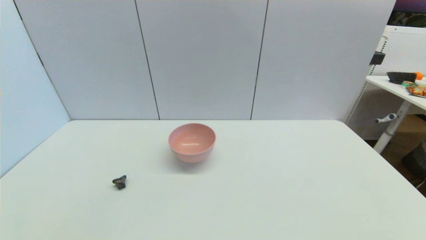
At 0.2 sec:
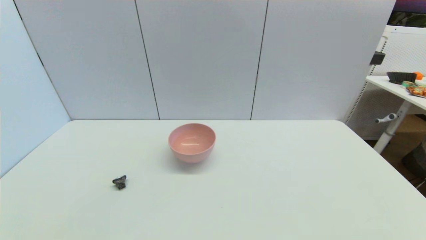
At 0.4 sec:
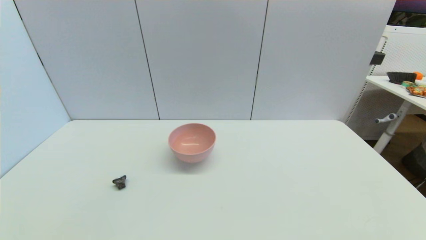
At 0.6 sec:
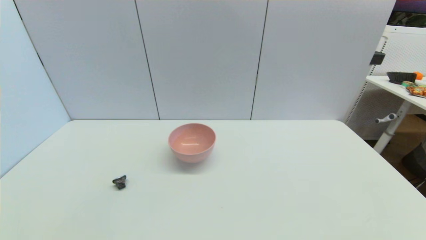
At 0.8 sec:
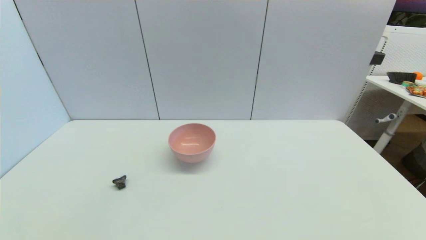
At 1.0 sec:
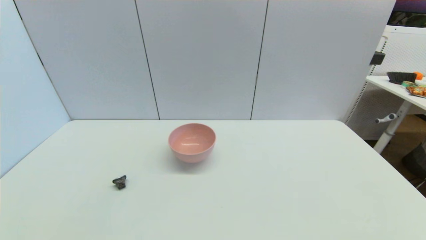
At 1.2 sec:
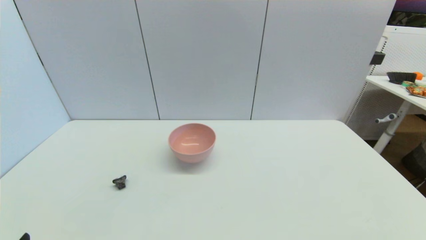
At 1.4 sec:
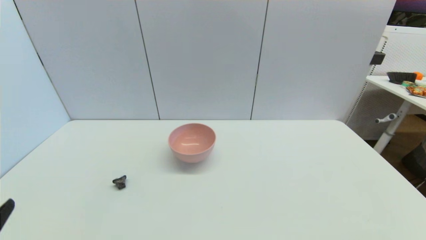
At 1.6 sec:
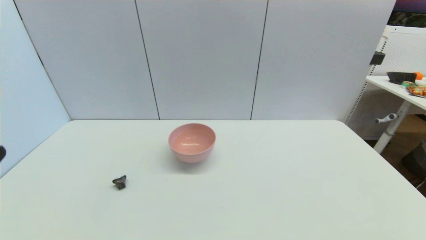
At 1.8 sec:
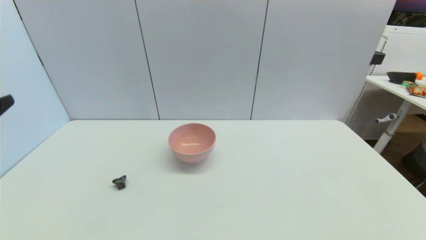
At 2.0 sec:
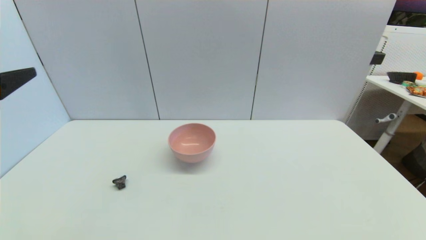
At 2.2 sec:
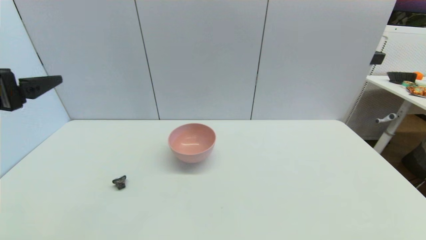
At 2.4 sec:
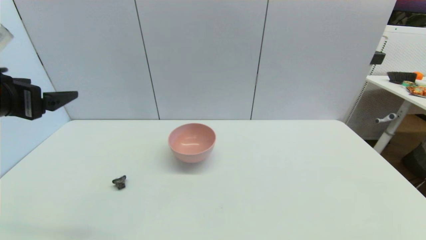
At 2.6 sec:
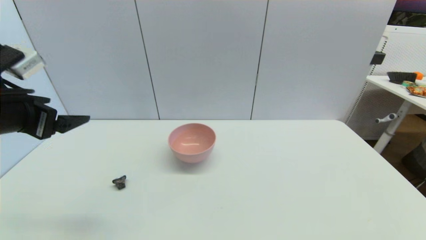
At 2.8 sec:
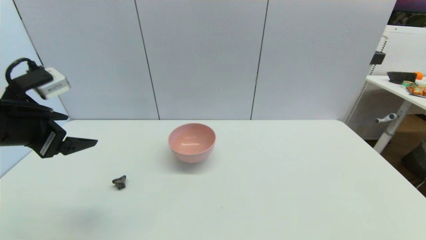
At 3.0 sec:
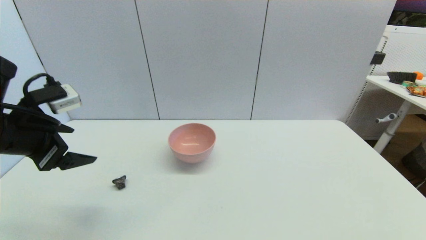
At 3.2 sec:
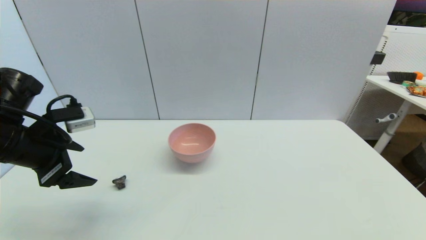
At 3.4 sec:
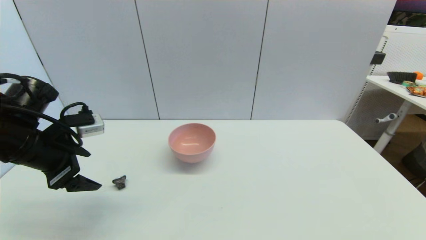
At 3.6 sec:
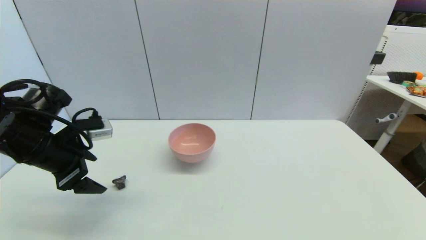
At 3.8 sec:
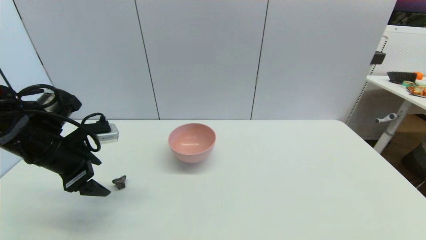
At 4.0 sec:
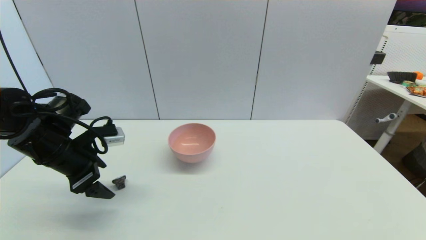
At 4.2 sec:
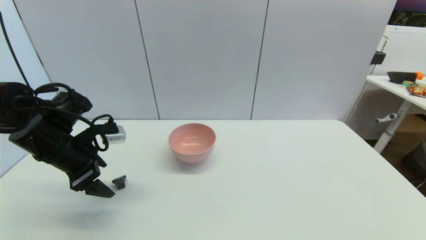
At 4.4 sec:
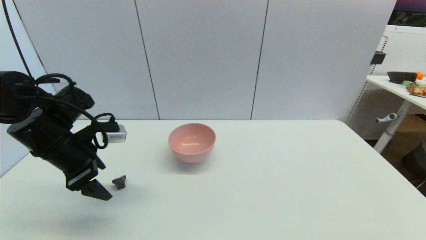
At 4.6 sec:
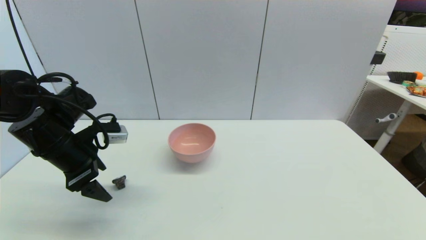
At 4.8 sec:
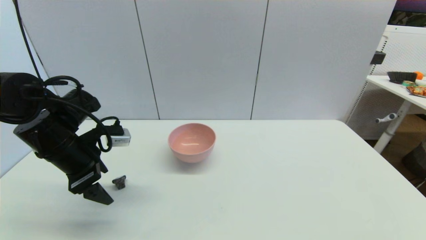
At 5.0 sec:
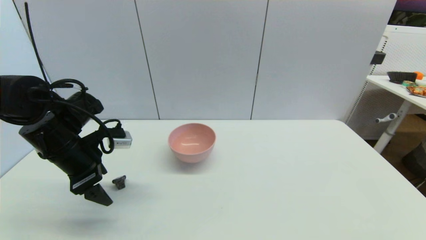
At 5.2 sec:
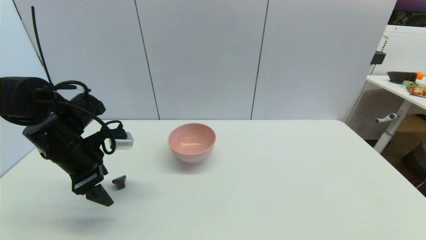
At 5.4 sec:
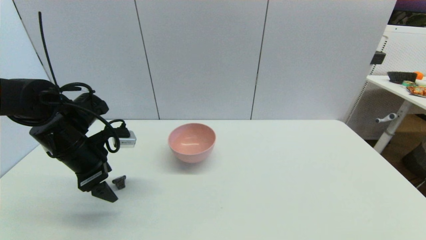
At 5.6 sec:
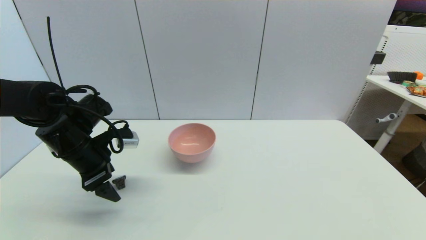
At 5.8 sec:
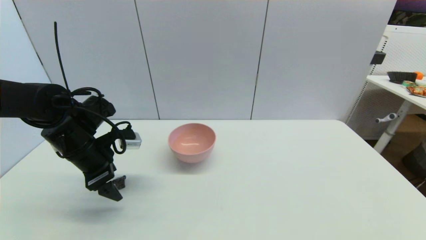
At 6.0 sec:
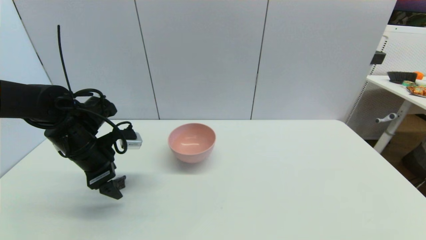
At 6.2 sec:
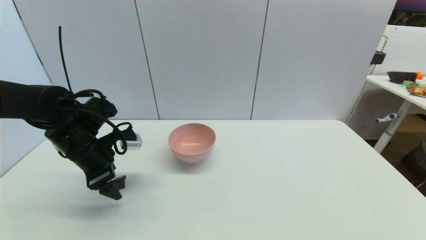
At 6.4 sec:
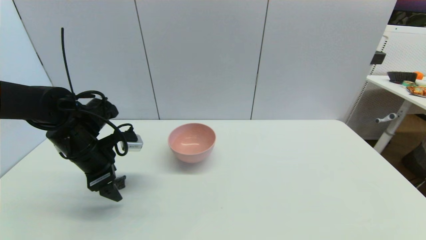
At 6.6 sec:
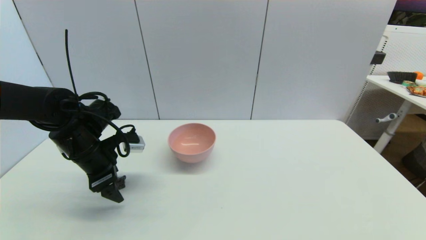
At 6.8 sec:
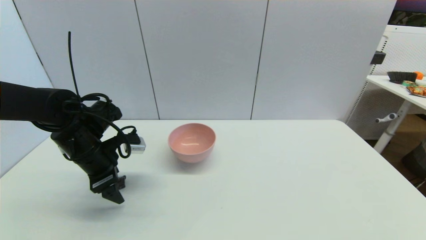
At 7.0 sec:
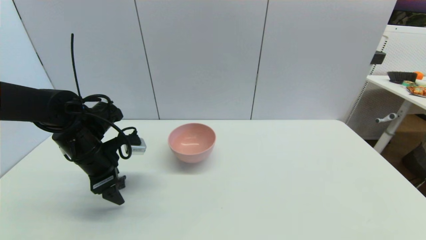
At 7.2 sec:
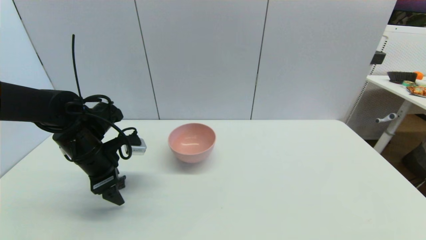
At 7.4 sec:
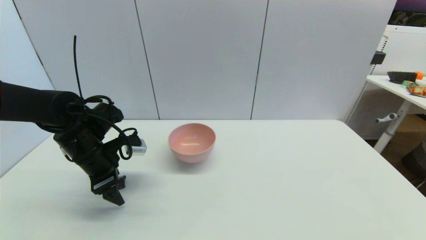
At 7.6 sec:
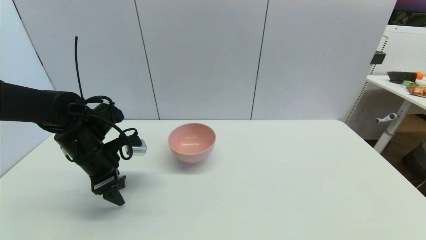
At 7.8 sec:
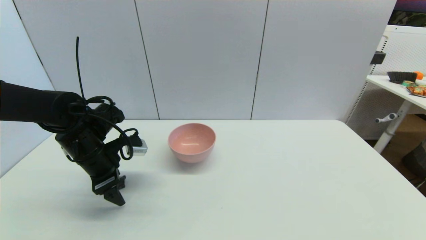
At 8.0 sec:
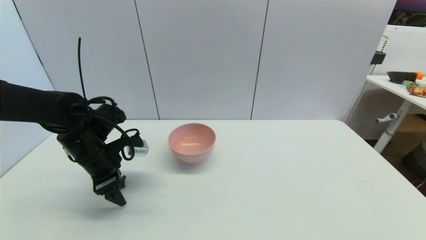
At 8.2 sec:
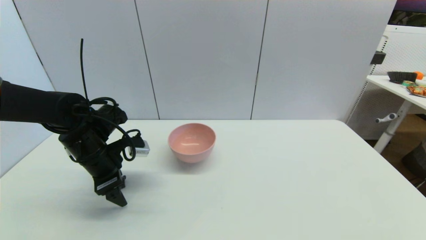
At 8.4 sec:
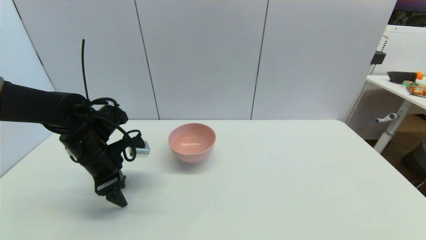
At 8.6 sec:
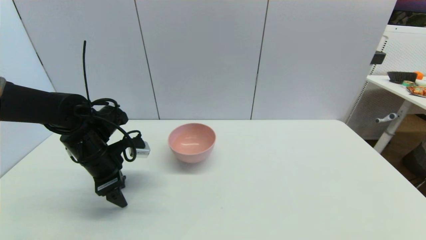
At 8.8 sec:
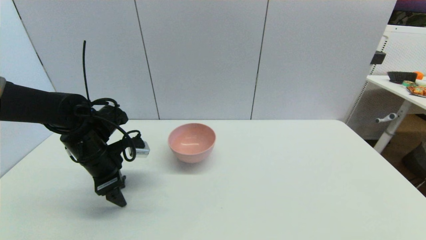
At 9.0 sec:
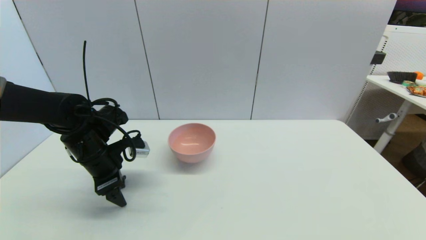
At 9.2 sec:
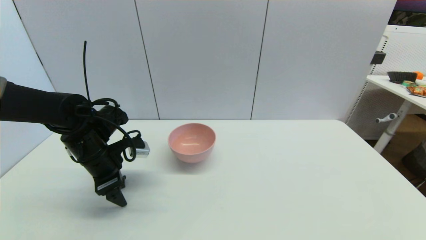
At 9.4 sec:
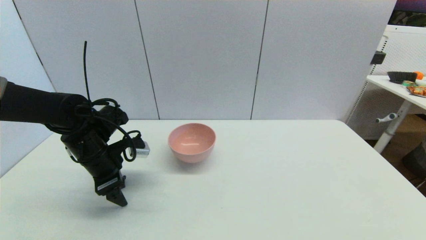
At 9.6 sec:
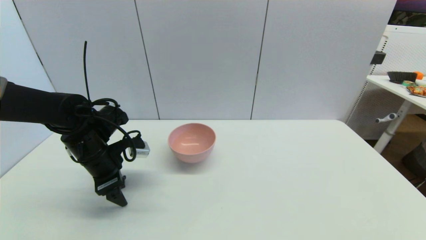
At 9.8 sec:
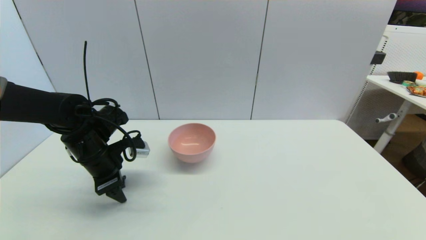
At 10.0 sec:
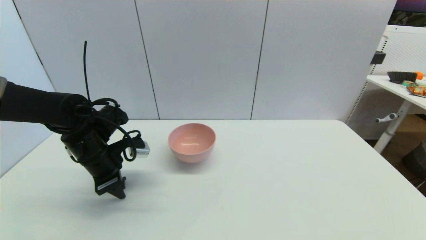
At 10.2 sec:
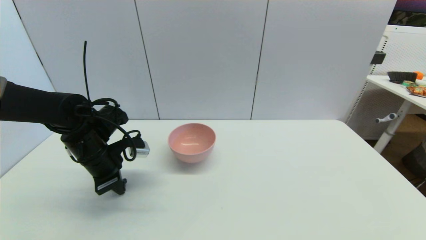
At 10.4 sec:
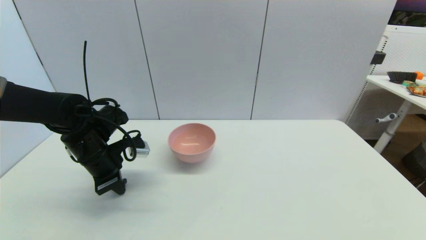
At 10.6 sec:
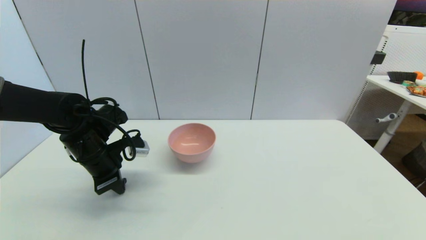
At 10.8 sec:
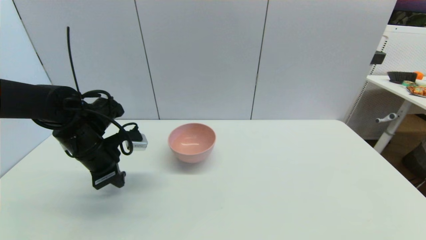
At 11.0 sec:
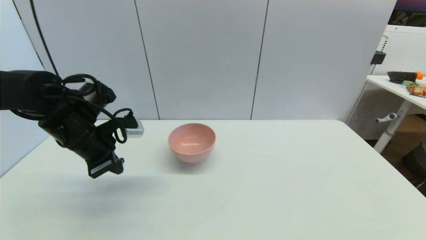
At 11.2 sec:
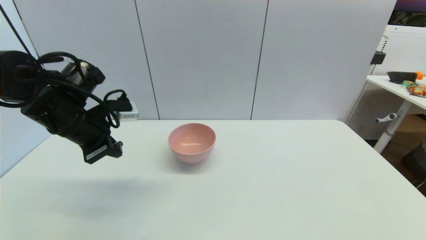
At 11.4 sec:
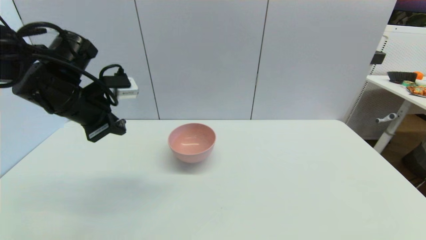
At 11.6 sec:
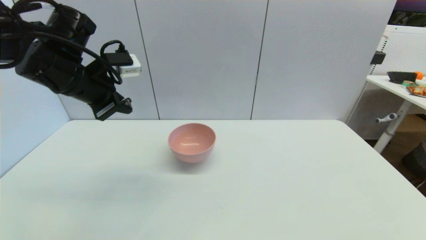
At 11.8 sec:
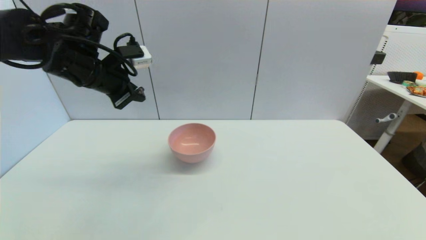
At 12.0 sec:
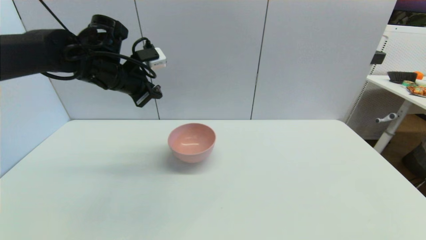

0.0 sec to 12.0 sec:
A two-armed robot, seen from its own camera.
Step, 1.2 sec to 10.2 sec: Grasp the coffee capsule with left gripper.
1.6 sec to 3.0 sec: The left gripper heads forward, covering some 20 cm.
3.0 sec to 4.4 sec: The left gripper shifts approximately 5 cm downward and forward.
4.4 sec to 6.0 sec: There are only small adjustments of the grippers.
6.0 sec to 7.6 sec: There are only small adjustments of the grippers.
7.6 sec to 9.0 sec: Neither gripper changes place.
10.4 sec to 12.0 sec: The left gripper travels upward and forward by approximately 15 cm.

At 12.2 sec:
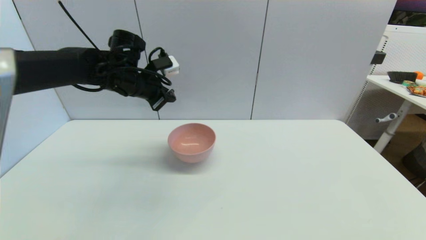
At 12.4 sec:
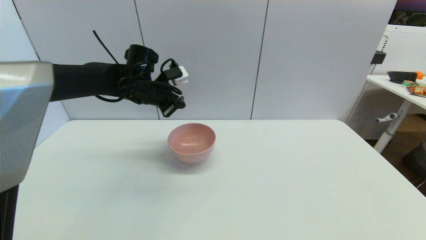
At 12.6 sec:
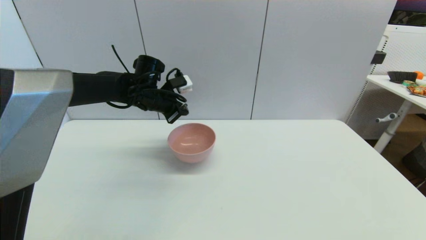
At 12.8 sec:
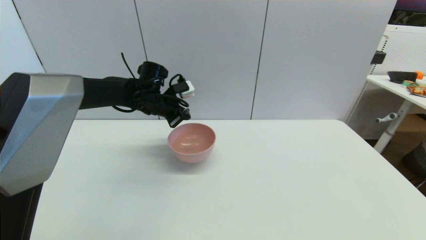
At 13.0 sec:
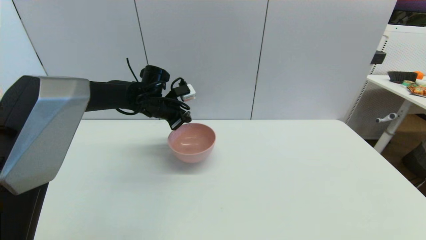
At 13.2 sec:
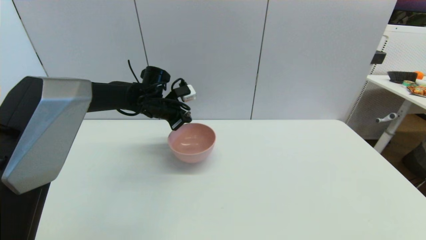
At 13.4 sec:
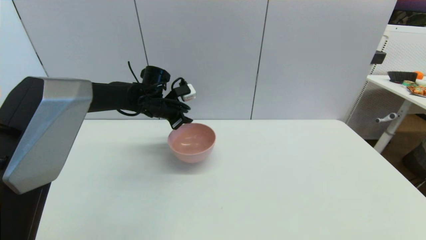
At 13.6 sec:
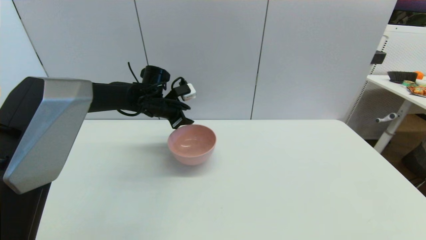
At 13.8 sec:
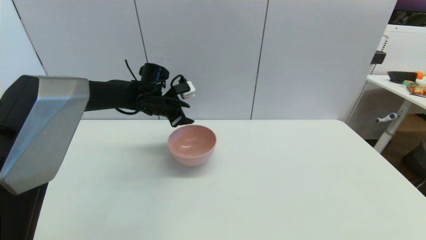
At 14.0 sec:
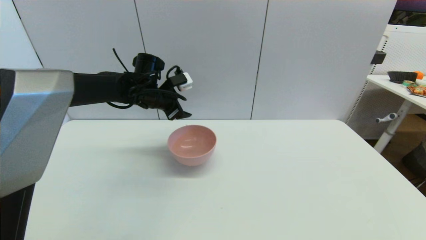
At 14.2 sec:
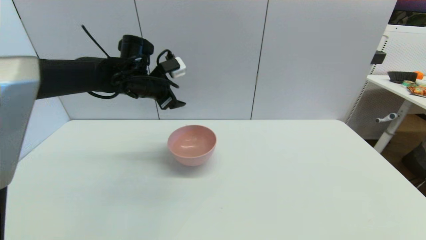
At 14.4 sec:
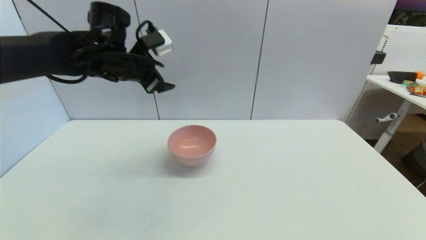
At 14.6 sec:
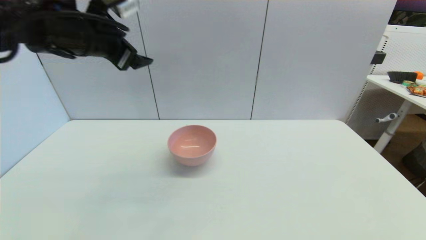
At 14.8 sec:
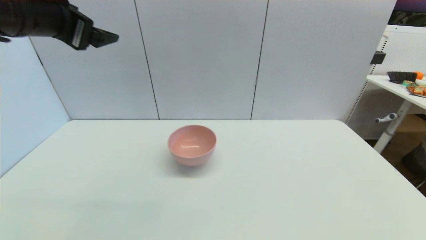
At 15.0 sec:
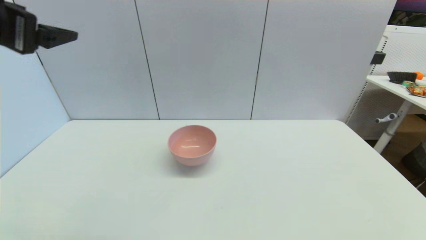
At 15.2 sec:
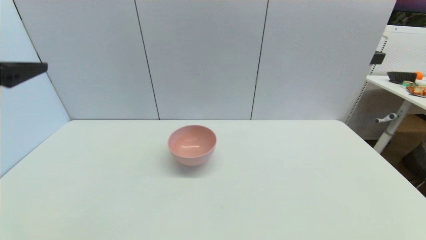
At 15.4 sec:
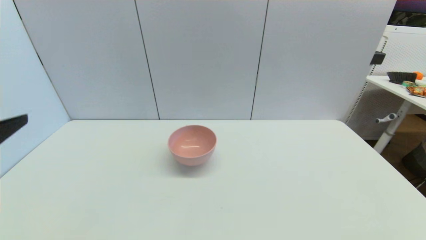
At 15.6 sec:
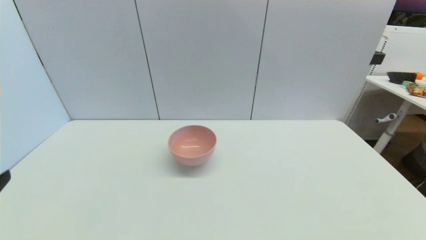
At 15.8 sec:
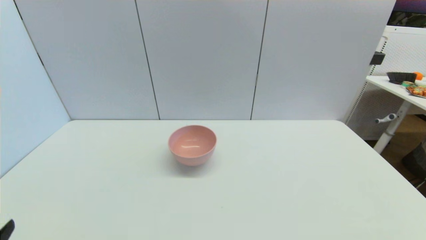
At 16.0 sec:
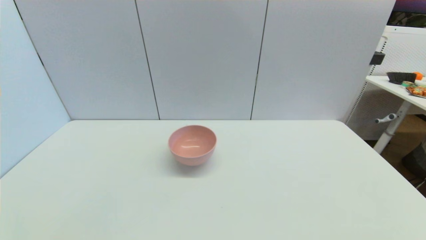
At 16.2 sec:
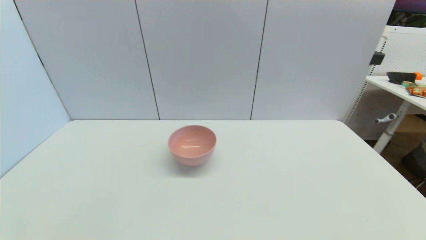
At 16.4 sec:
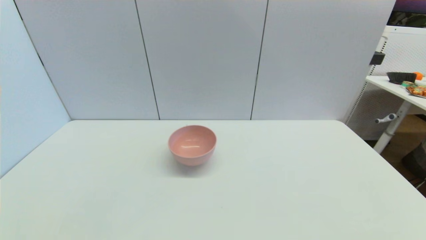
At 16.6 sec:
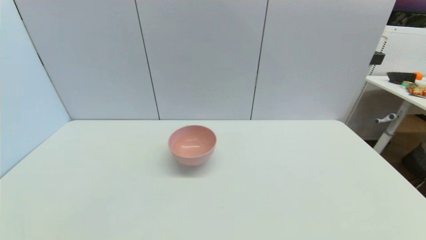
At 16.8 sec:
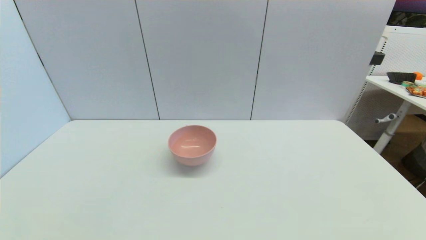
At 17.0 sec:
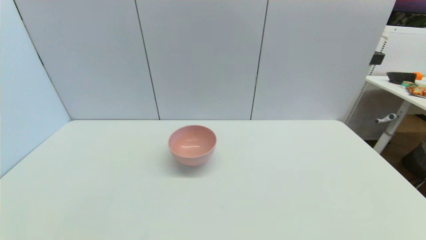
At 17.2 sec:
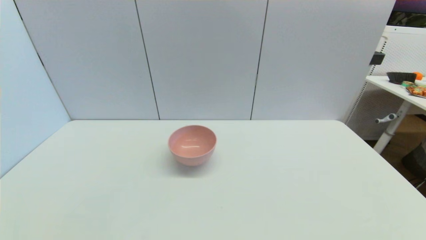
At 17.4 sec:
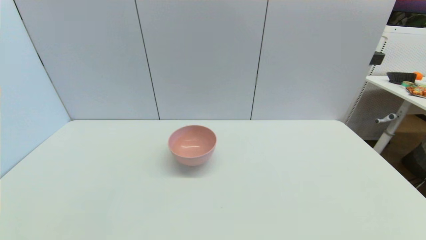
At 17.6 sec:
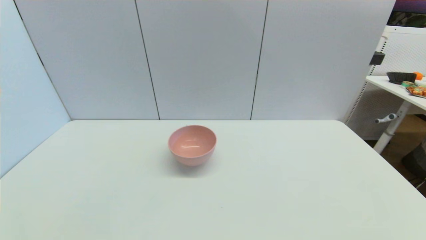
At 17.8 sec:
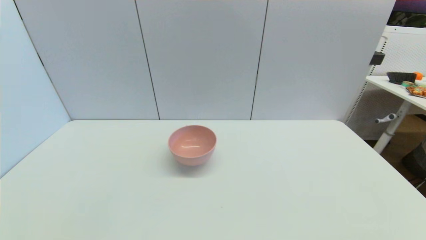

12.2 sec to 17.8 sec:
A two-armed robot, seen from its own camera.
12.2 sec to 13.6 sec: The left gripper is displaced downward by roughly 10 cm, and opens.
13.6 sec to 15.0 sec: The left gripper moves backward, upward and to the left, about 35 cm, and opens.
15.0 sec to 16.4 sec: The left gripper heads downward and backward, covering roughly 35 cm.
16.4 sec to 17.8 sec: Both grippers stay put.
